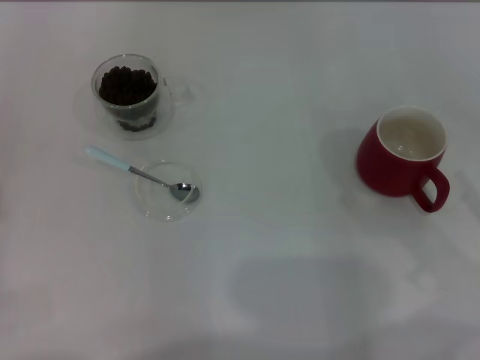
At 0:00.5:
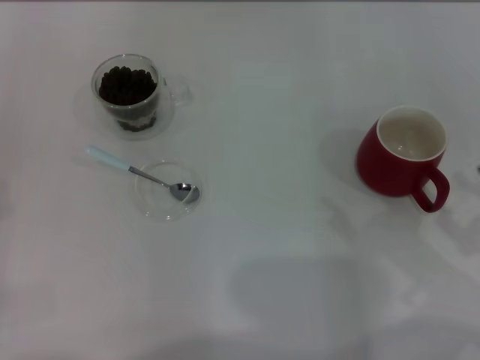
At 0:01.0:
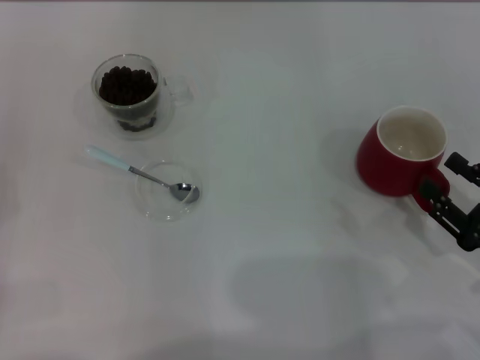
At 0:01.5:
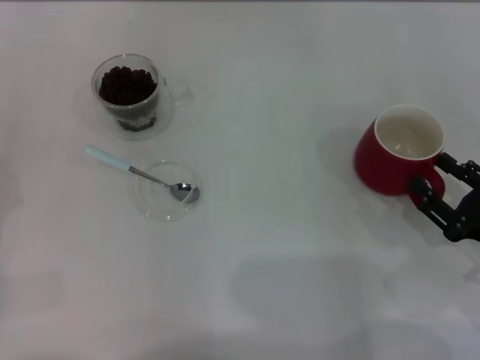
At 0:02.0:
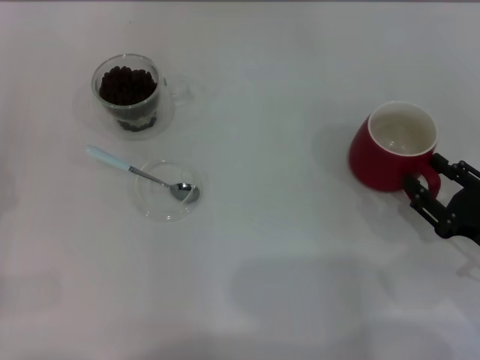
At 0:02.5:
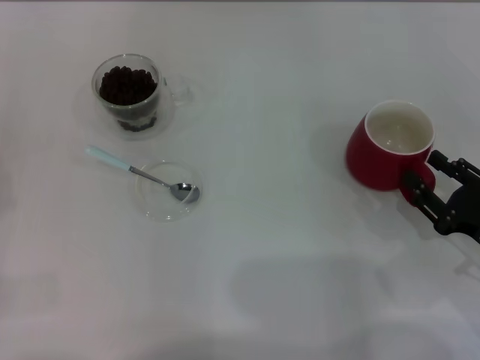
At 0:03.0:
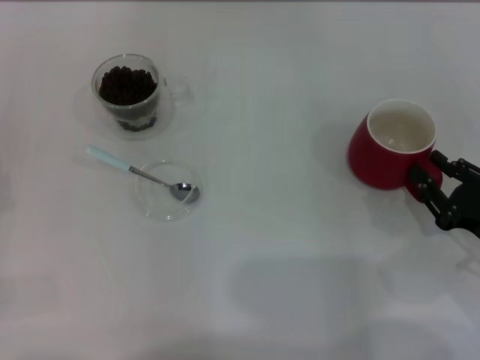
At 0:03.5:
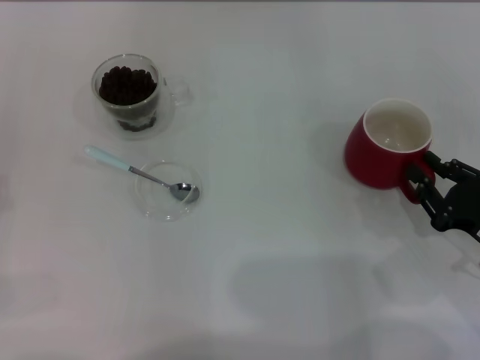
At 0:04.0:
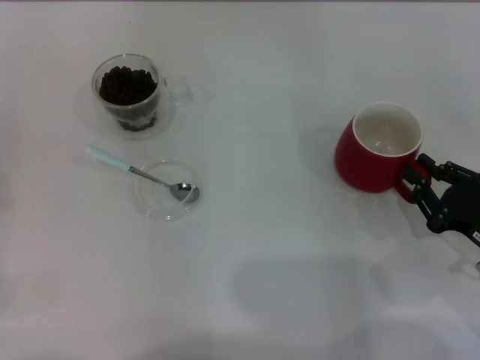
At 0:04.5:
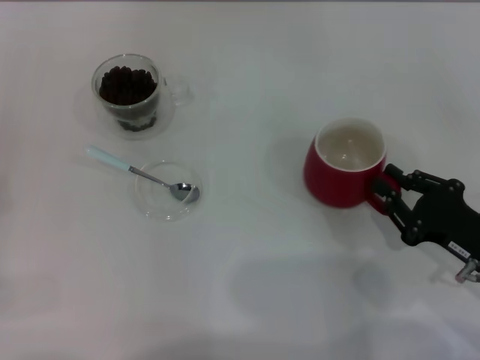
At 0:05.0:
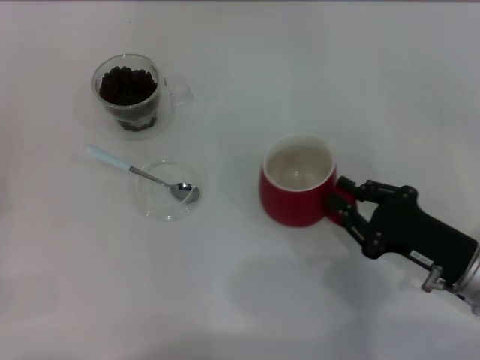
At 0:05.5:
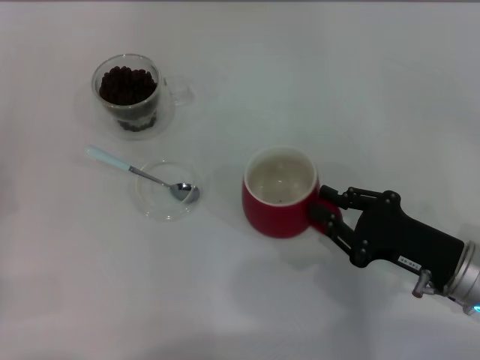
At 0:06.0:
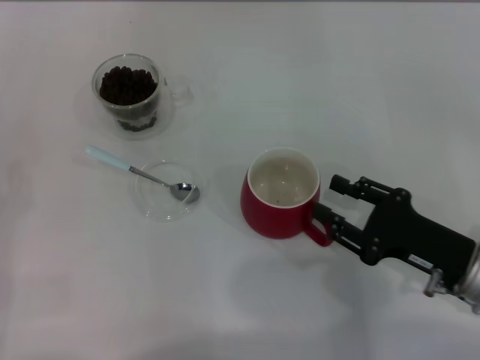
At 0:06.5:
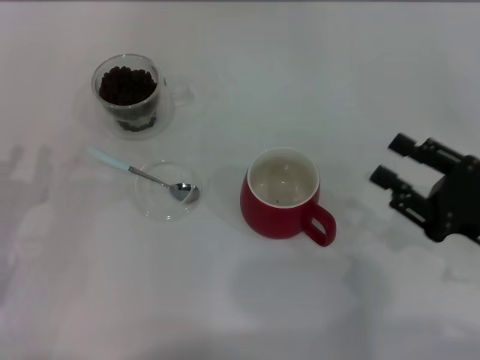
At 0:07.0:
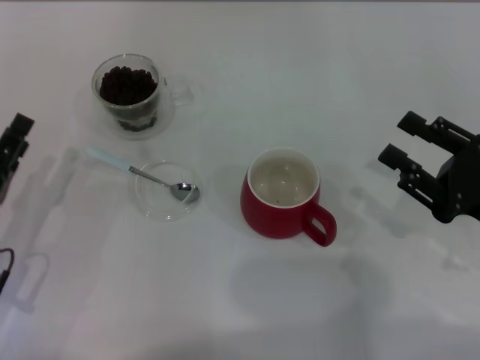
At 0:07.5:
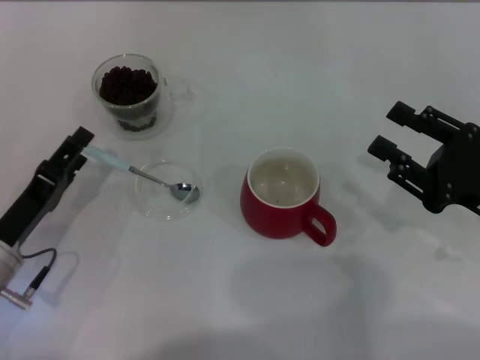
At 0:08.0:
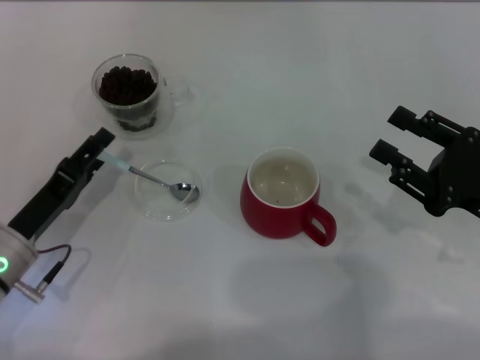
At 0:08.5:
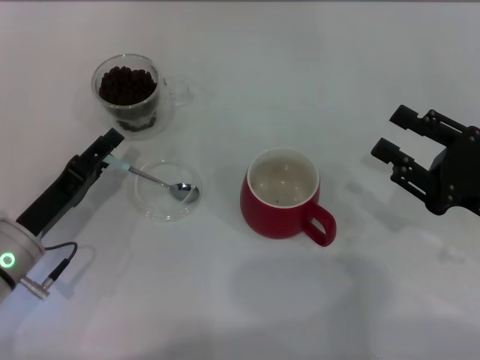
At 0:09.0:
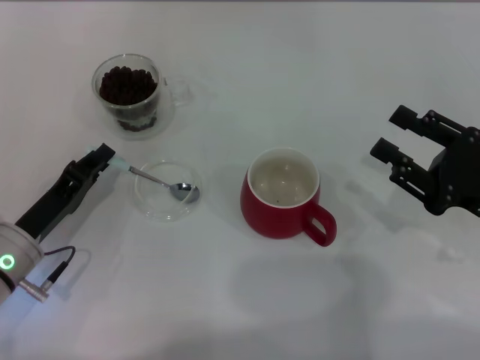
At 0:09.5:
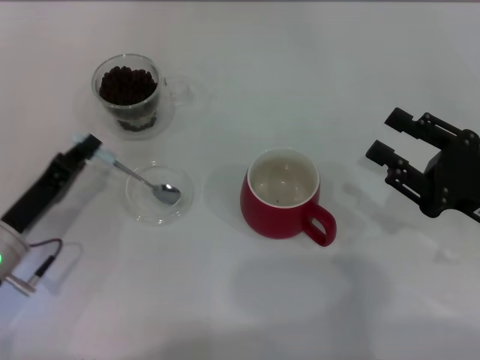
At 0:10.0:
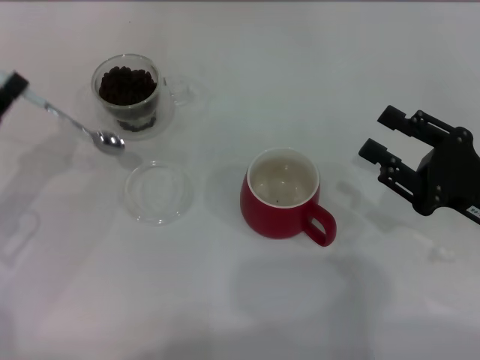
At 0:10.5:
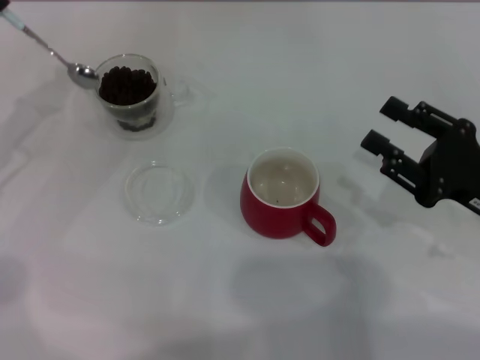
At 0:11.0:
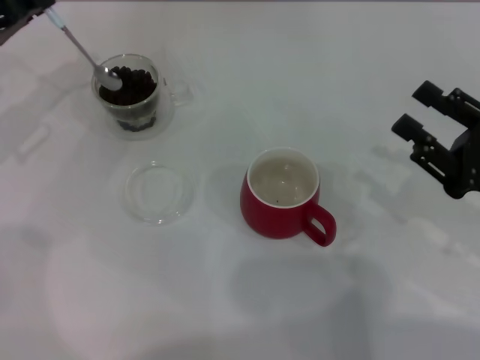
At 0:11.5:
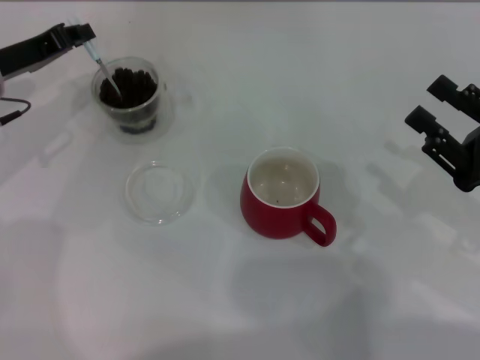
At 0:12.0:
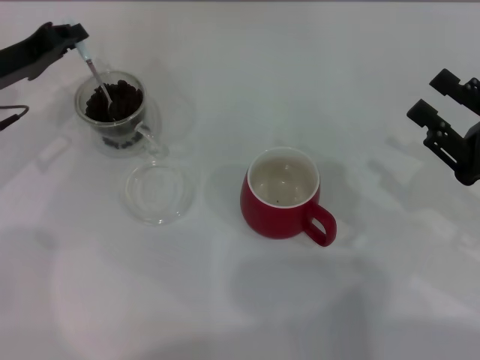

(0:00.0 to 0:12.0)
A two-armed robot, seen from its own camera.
Task of the whole recording: Use a blue spoon to take out the coffee beans from the glass and pour them into the red cup.
Step, 0:00.0 - 0:06.0: Move the cup to the center of view with the left gripper.
Step, 0:06.5 - 0:09.5: Pick up the spoon with the right gripper.
0:00.0 - 0:02.0: The right gripper is displaced downward by about 5 cm.
0:02.0 - 0:04.0: The right gripper closes its fingers.
0:04.0 - 0:06.0: The right gripper is displaced to the left by approximately 5 cm, and opens up.
0:06.0 - 0:08.0: The left gripper travels to the right by some 10 cm, and opens; the right gripper shifts by roughly 5 cm.
0:08.0 - 0:10.0: The left gripper shifts some 10 cm to the left and upward, and closes its fingers.
0:10.0 - 0:12.0: The left gripper heads forward, covering about 15 cm.

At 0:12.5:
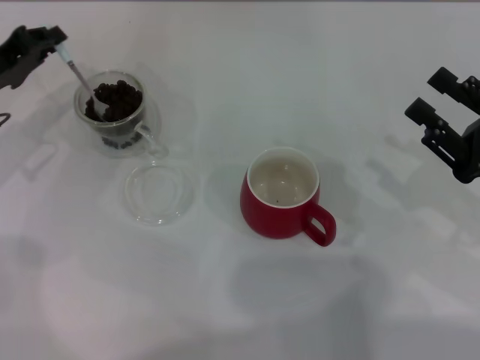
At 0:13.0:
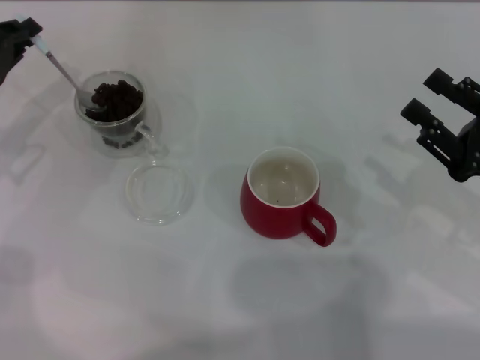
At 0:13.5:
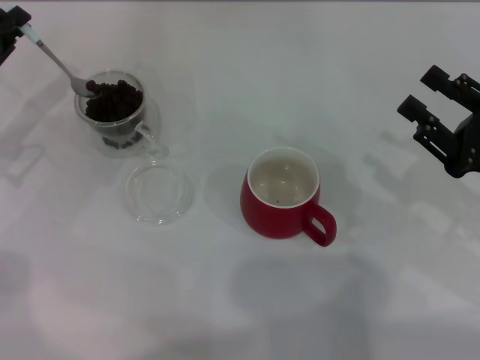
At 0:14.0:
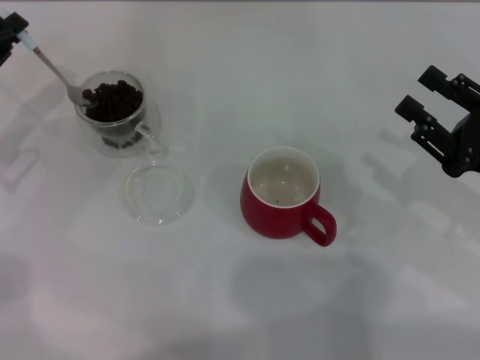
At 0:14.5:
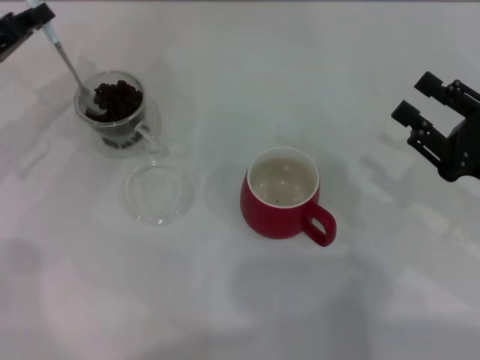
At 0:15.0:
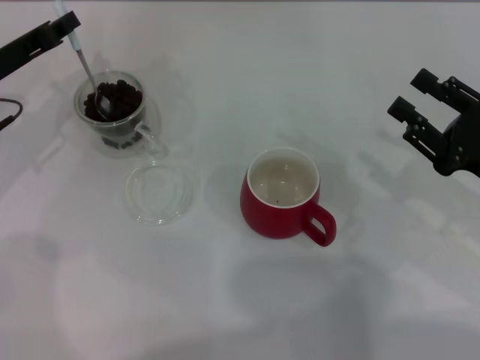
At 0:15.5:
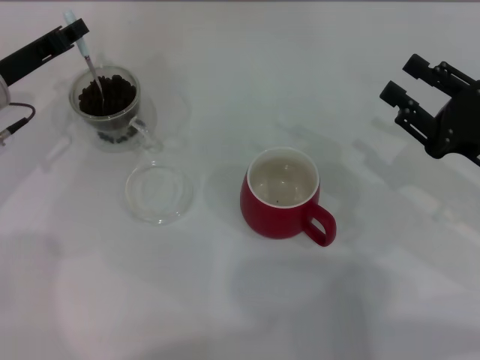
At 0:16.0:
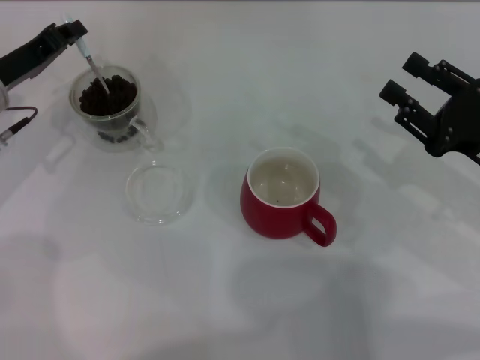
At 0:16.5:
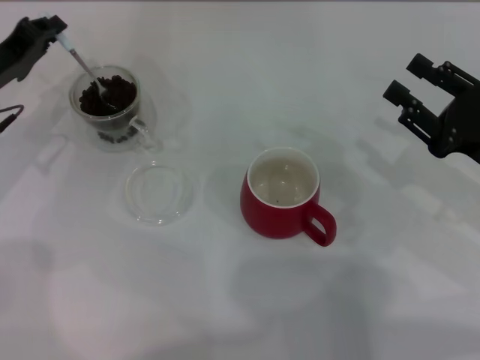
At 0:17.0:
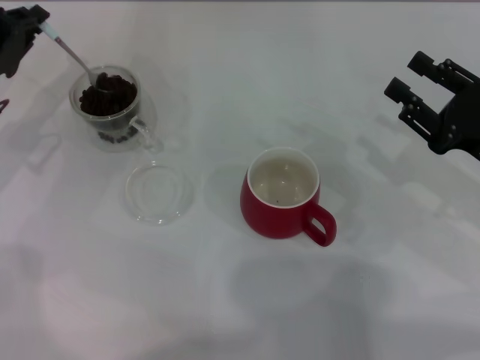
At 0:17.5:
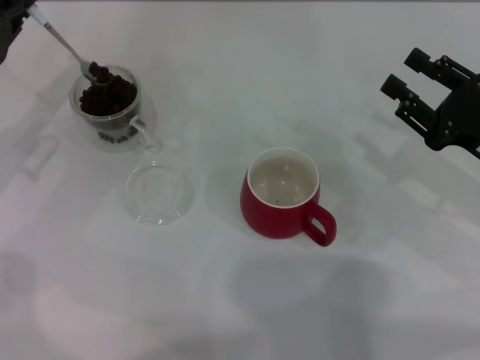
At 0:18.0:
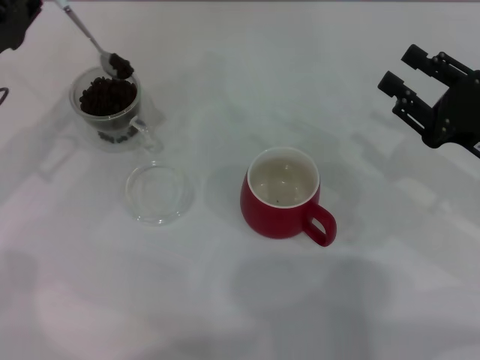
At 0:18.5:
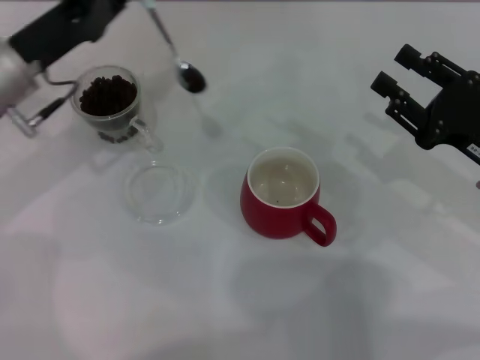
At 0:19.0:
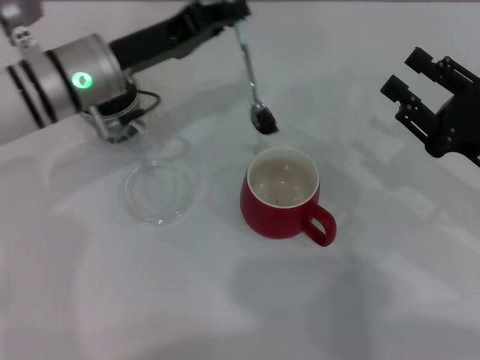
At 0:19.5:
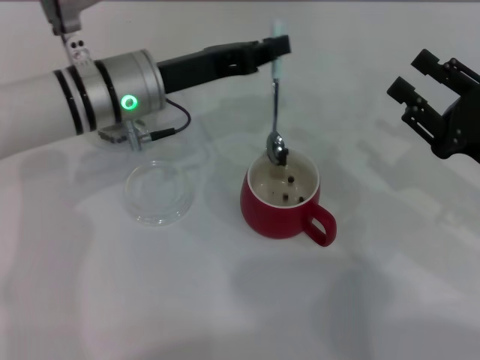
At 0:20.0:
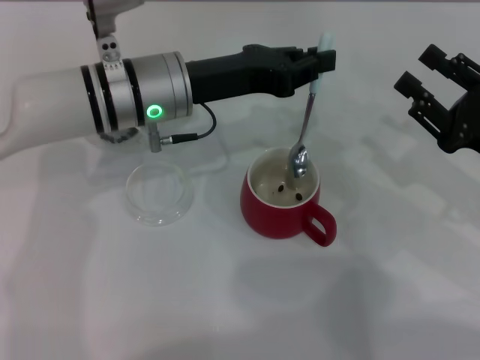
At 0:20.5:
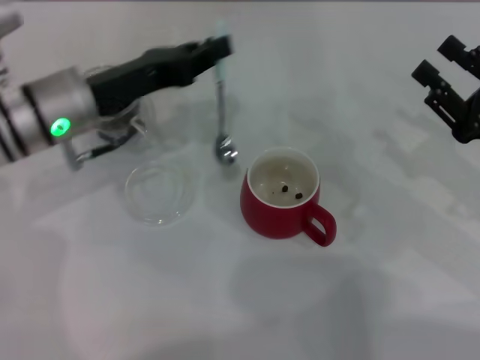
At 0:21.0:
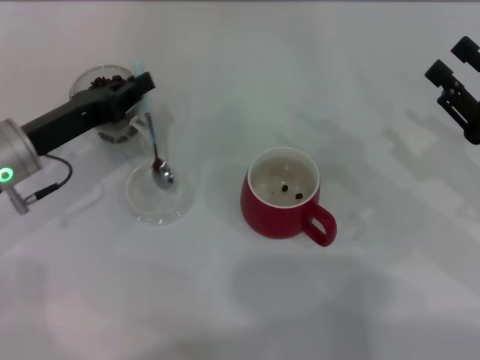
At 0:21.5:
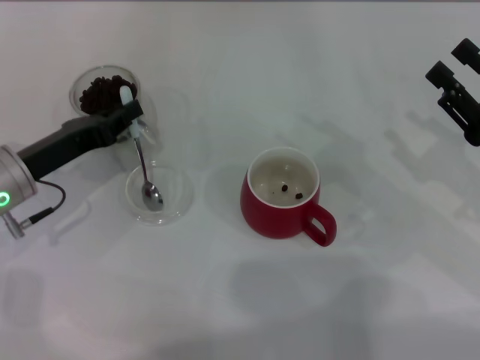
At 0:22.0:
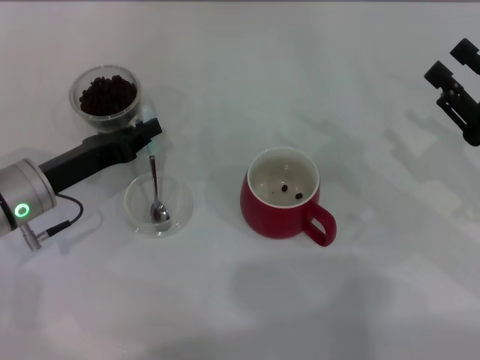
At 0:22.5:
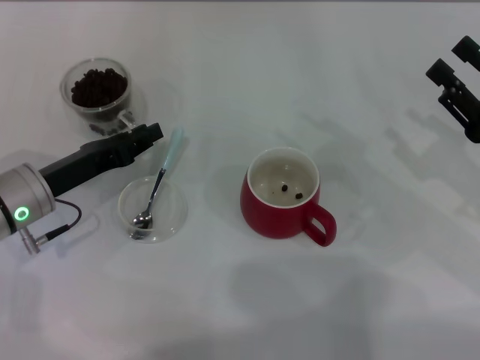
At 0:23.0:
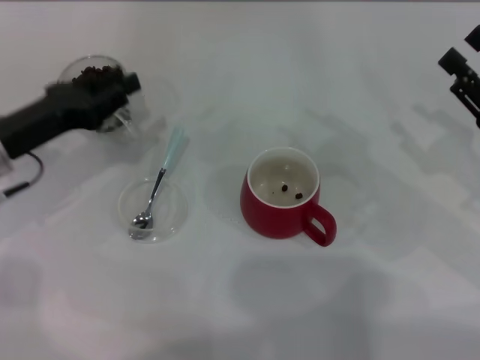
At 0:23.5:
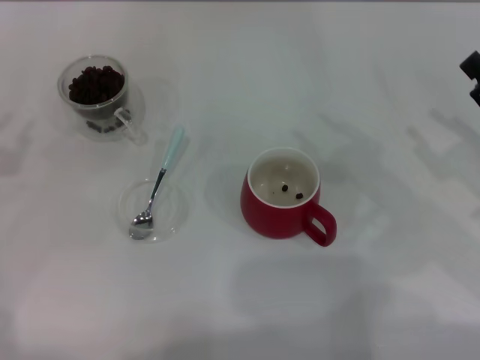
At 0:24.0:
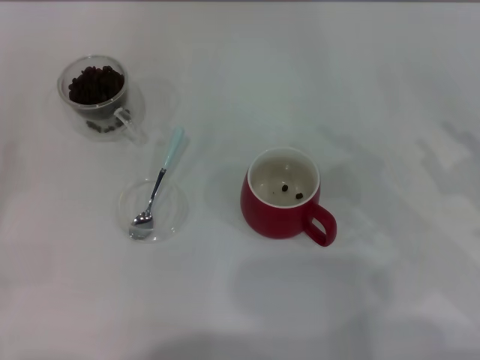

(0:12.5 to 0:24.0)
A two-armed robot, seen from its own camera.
Task of the whole recording: Use a blue spoon to take out the coffee beans from the glass and pour them into the red cup.
Step, 0:12.5 - 0:19.5: Scoop a spoonful of beans into the cup with the right gripper.
0:12.5 - 0:14.5: The grippers stay close to where they were, moving slightly.
0:14.5 - 0:16.5: The grippers make only small movements.
0:16.5 - 0:18.5: The left gripper goes some 5 cm to the right.
0:18.5 - 0:20.0: The left gripper heads to the right, covering roughly 15 cm.
0:20.0 - 0:22.0: The left gripper is displaced to the left, downward and backward by approximately 15 cm.
0:22.0 - 0:24.0: The left gripper is displaced to the left and backward by some 20 cm.

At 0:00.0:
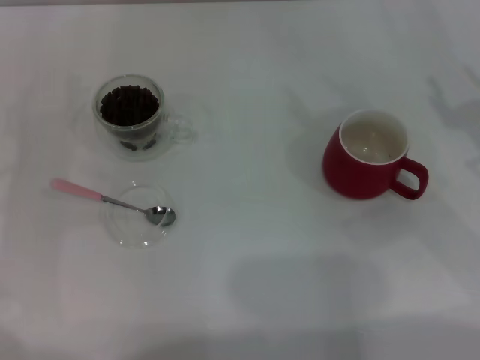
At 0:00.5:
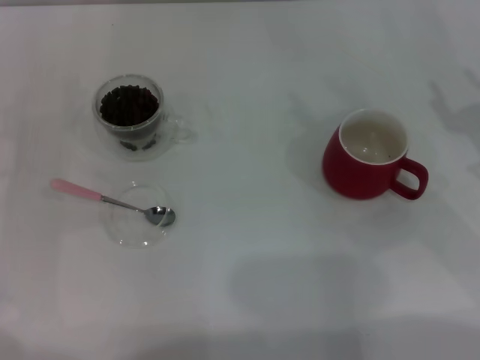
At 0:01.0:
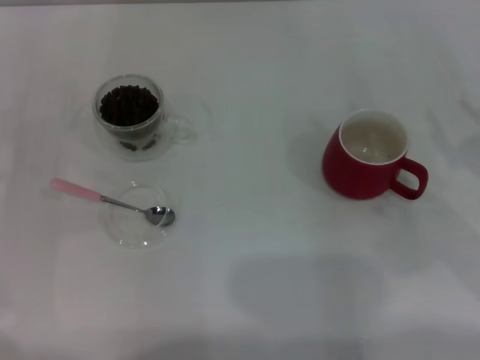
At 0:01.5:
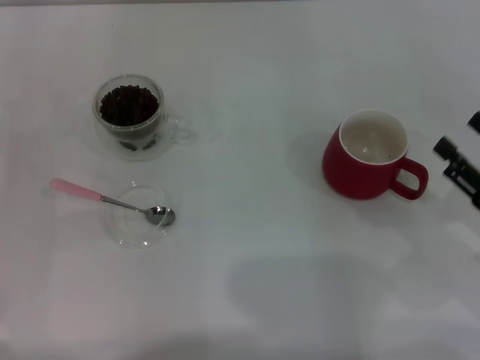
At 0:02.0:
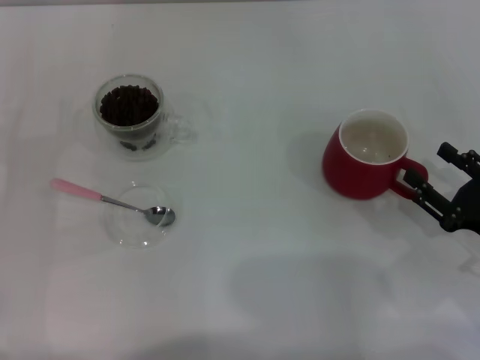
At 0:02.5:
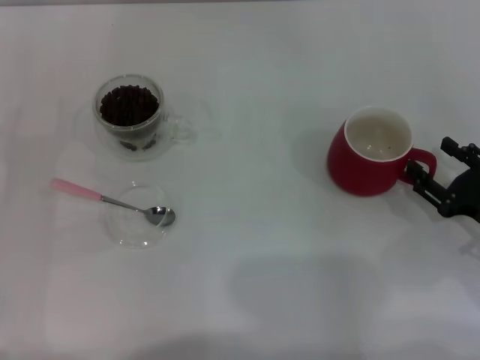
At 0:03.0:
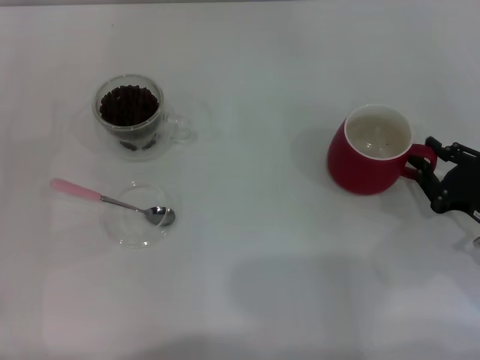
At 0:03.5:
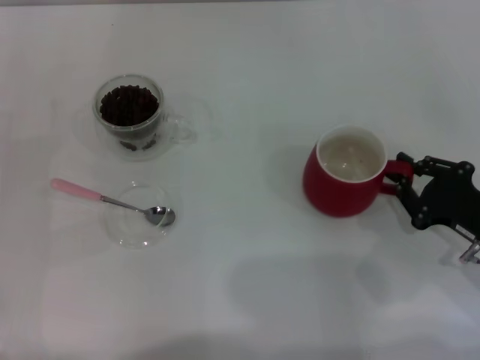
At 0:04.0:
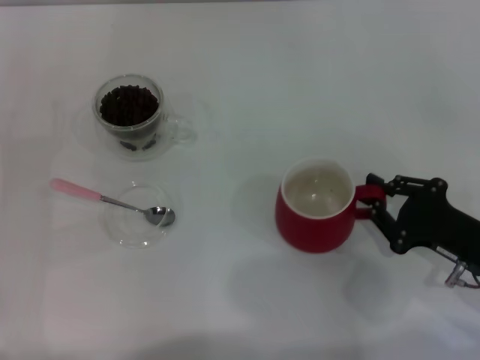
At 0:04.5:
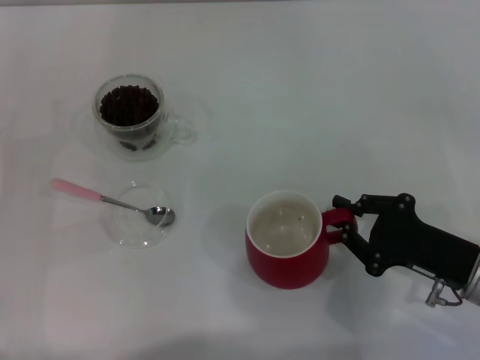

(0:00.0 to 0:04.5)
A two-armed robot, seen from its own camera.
Task of the whole recording: Use a pink spoon to take out the coffee beans from the glass and pour them into the red cup.
0:00.0 - 0:02.0: The right gripper travels downward and backward by about 10 cm.
0:02.0 - 0:04.5: The right gripper travels to the left by roughly 5 cm, and closes up.
